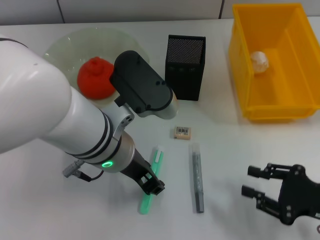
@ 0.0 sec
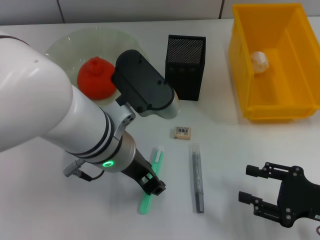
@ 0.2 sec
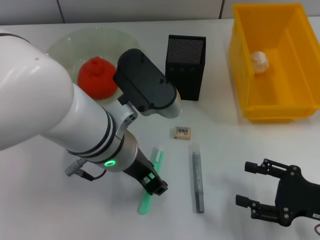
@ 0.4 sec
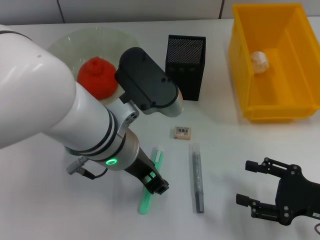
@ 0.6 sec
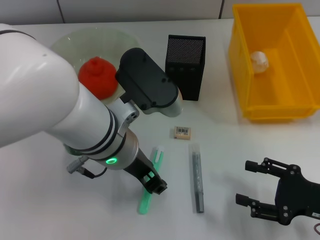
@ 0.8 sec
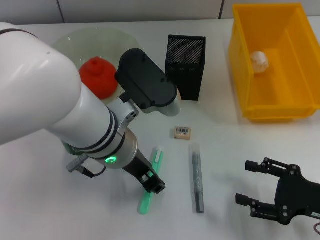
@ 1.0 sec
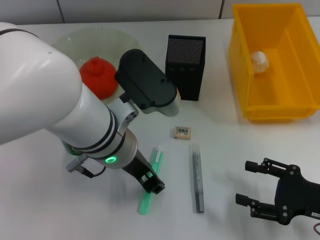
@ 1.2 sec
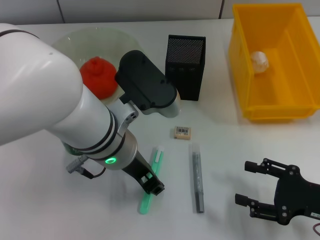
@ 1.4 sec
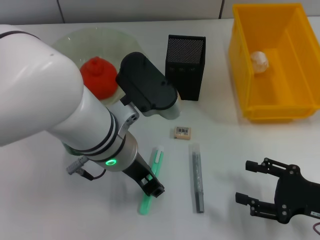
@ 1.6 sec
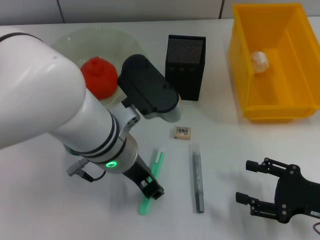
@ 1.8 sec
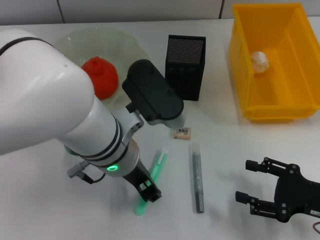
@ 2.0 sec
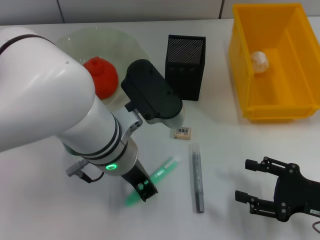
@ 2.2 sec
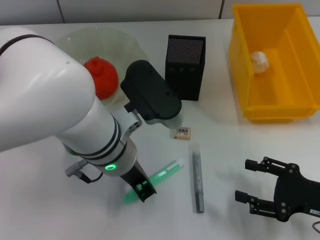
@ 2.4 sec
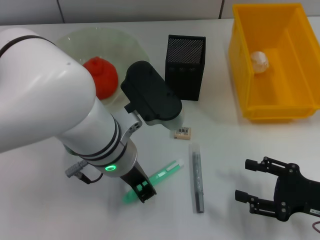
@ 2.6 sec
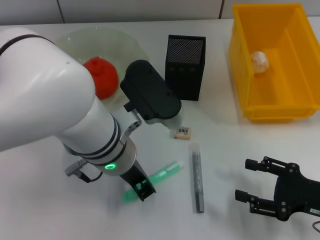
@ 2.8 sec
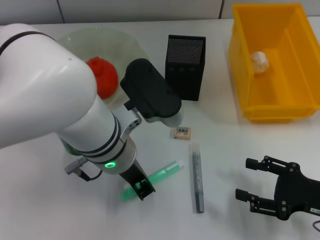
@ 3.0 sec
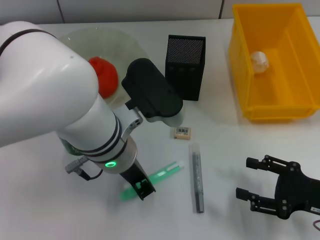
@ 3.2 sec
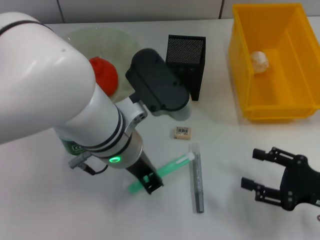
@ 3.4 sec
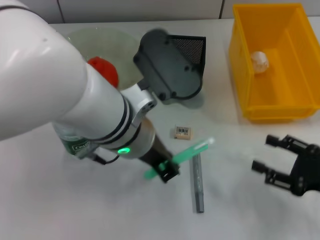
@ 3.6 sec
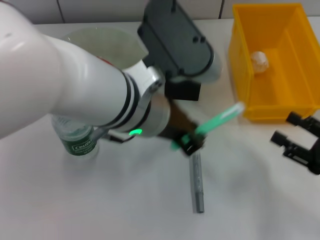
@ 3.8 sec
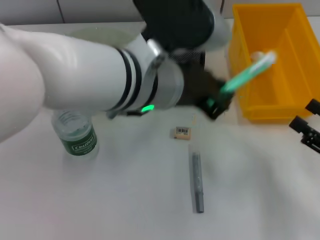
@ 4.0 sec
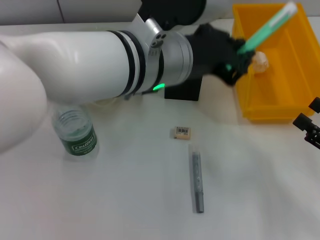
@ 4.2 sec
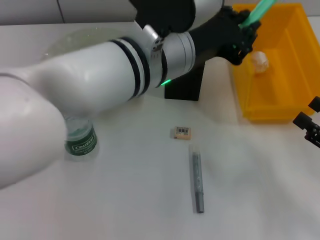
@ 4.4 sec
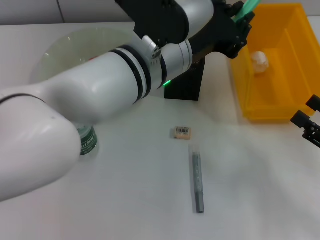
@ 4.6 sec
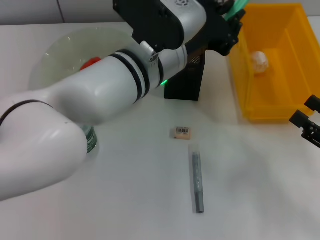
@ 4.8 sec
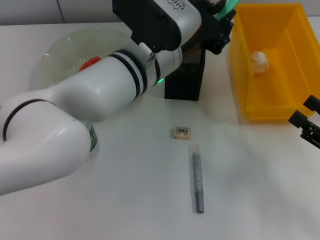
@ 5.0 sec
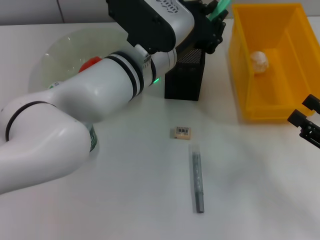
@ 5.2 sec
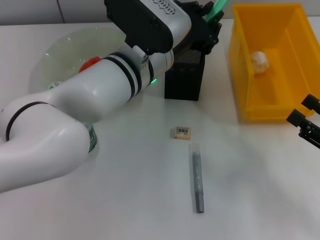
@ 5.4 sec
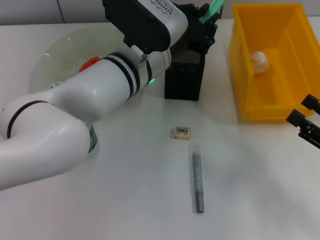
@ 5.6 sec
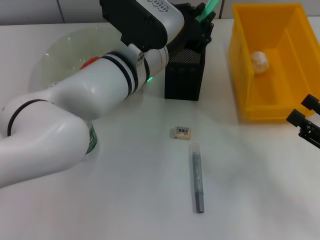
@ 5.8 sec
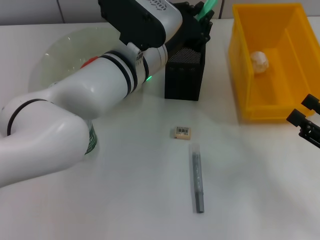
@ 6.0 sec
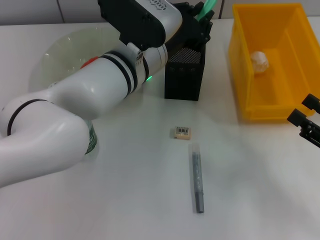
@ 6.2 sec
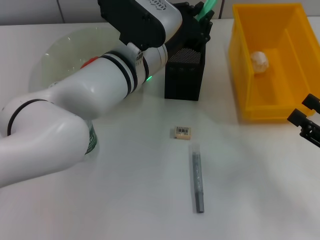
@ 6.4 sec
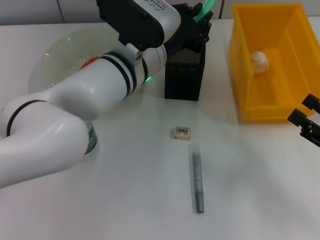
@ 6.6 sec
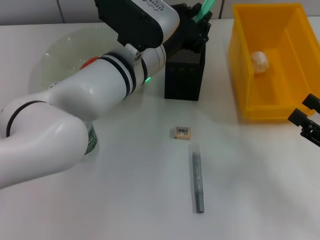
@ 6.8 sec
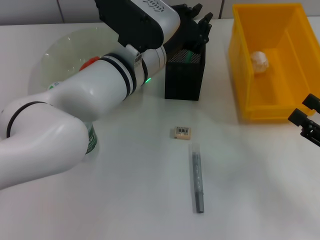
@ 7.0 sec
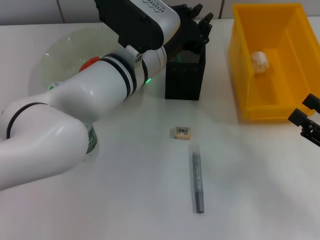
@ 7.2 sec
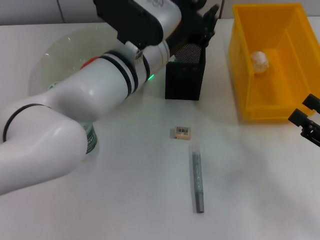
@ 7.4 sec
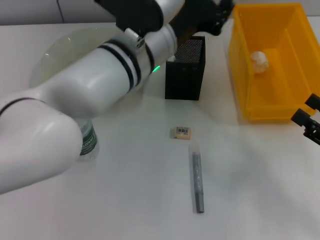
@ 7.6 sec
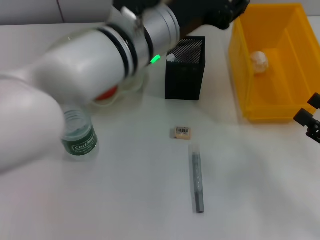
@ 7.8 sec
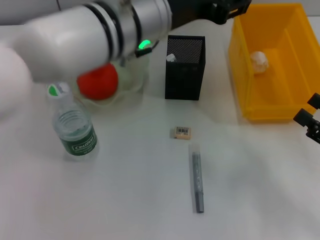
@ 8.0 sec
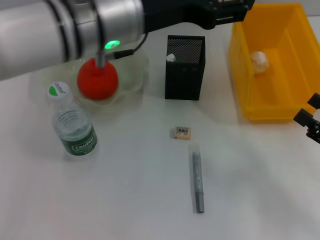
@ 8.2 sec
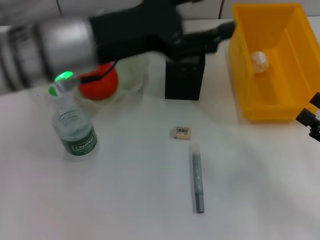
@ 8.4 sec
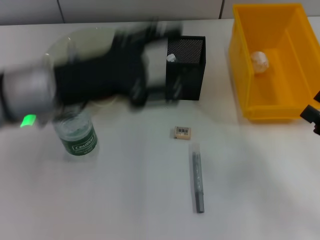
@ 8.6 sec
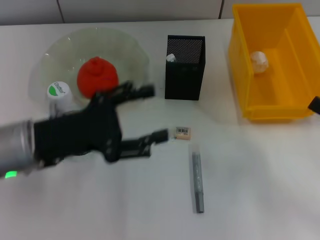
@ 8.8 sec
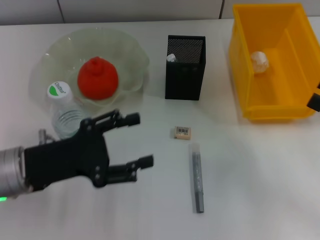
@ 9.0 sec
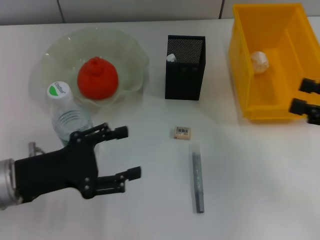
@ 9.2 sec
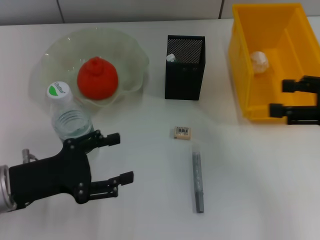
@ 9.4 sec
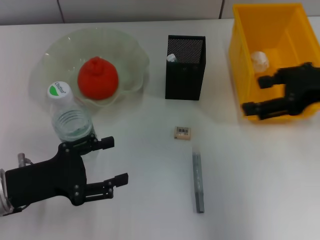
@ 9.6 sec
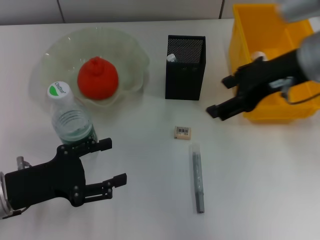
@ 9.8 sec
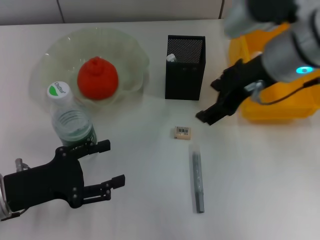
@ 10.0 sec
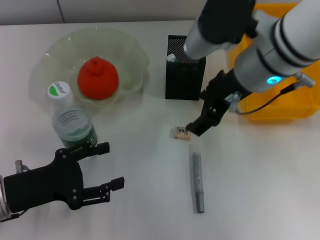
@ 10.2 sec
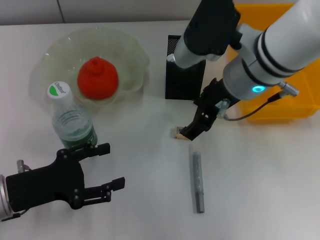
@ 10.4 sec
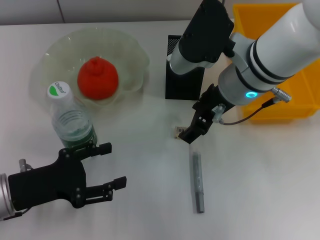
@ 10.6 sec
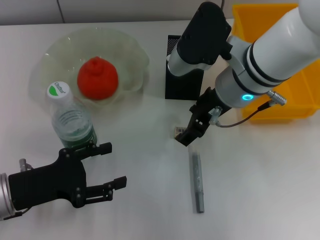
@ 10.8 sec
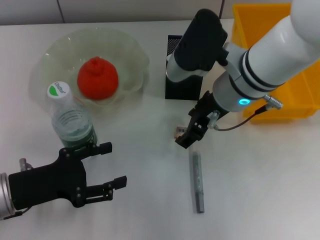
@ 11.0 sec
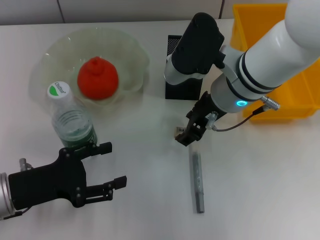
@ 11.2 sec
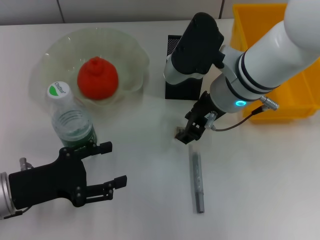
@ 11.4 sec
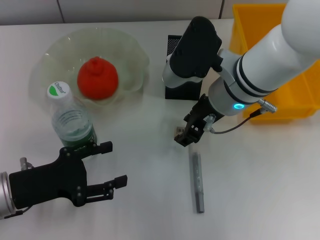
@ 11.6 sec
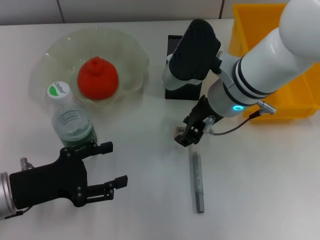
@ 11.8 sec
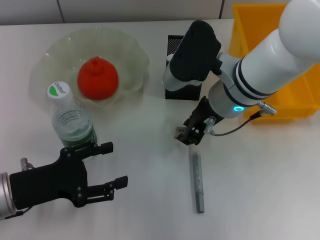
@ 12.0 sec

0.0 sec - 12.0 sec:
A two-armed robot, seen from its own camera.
Step, 0.0 sec - 2.8 sec: Grab the blue utility knife with the left hand.
Step, 3.2 sec - 7.6 sec: Place the blue utility knife into the pen holder with the left hand.
0.0 sec - 1.6 sec: The right gripper opens.
1.6 sec - 3.0 sec: Both grippers stay about where they are.
3.0 sec - 4.4 sec: The left gripper heads upward, covering approximately 10 cm.
4.4 sec - 6.0 sec: The left gripper moves downward and forward, some 10 cm.
6.0 sec - 7.6 sec: There are only small adjustments of the grippers.
7.6 sec - 9.0 sec: The right gripper goes some 5 cm upward, while the left gripper moves to the left, backward and downward, roughly 25 cm, and opens up.
9.0 sec - 10.4 sec: The right gripper travels to the left and forward by approximately 30 cm. Meanwhile the left gripper ends up roughly 5 cm from where it was.
10.4 sec - 12.0 sec: The right gripper closes up.

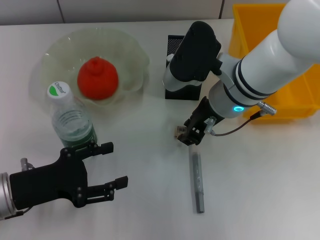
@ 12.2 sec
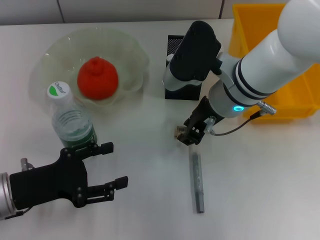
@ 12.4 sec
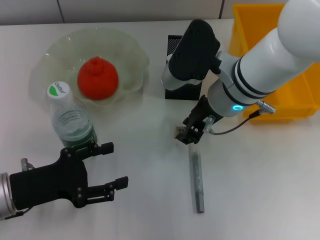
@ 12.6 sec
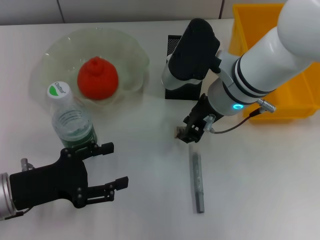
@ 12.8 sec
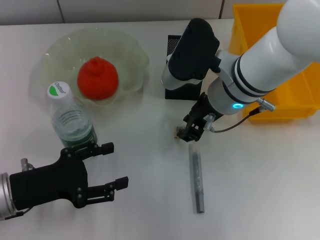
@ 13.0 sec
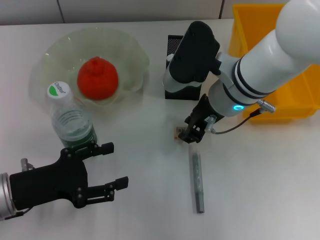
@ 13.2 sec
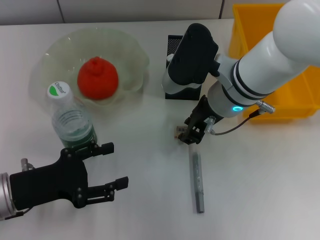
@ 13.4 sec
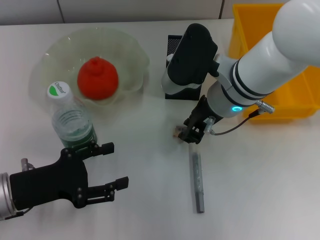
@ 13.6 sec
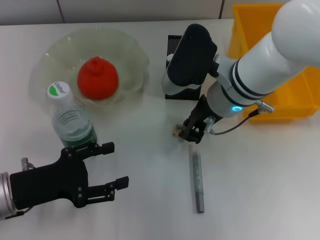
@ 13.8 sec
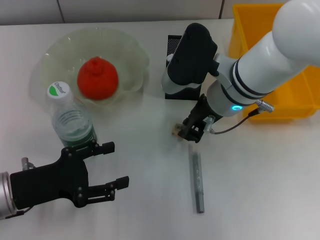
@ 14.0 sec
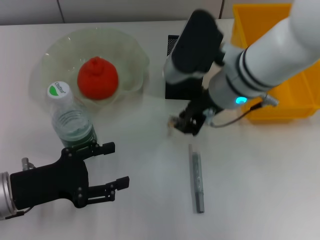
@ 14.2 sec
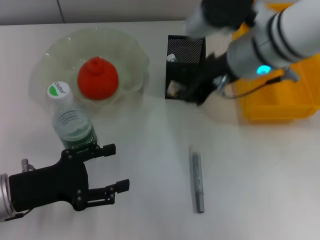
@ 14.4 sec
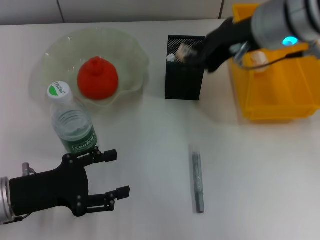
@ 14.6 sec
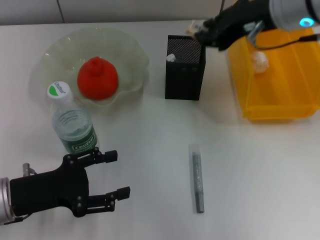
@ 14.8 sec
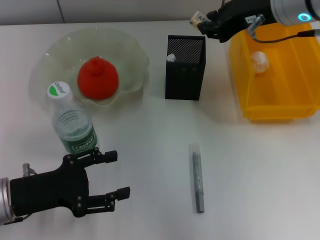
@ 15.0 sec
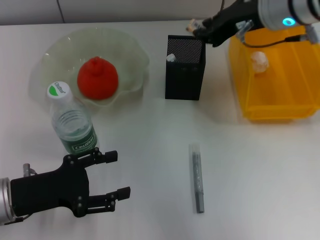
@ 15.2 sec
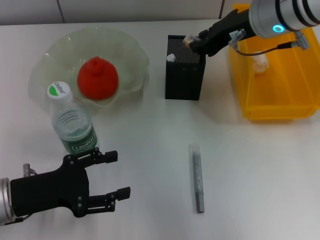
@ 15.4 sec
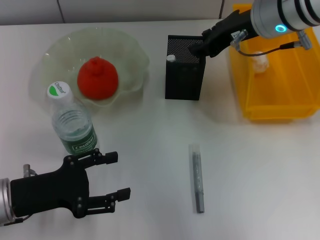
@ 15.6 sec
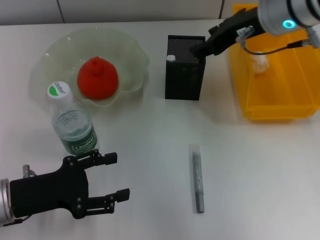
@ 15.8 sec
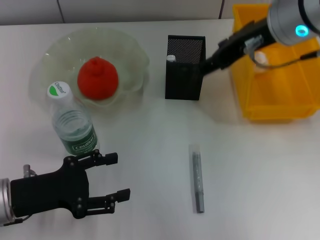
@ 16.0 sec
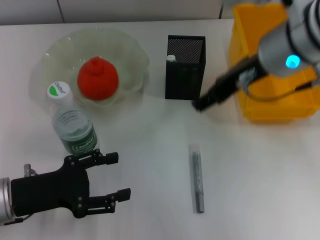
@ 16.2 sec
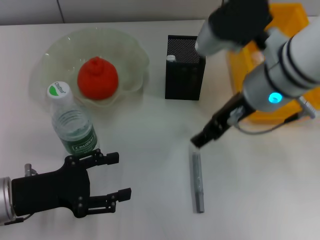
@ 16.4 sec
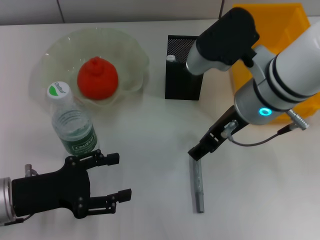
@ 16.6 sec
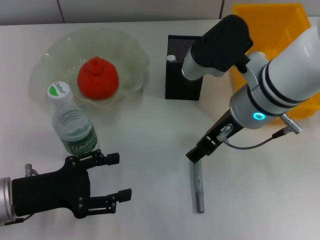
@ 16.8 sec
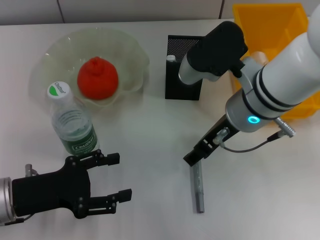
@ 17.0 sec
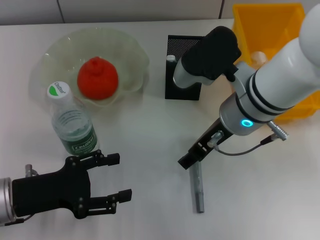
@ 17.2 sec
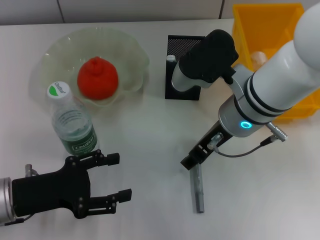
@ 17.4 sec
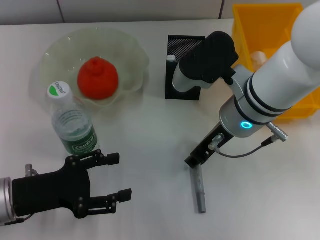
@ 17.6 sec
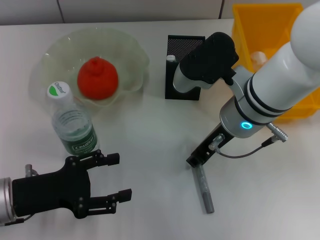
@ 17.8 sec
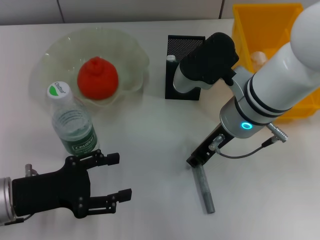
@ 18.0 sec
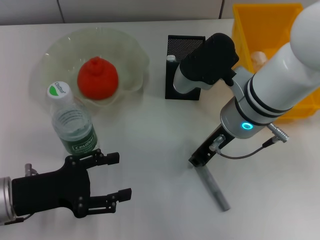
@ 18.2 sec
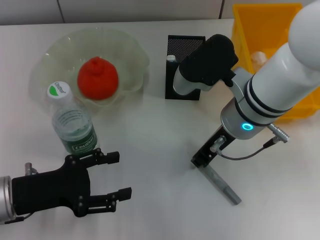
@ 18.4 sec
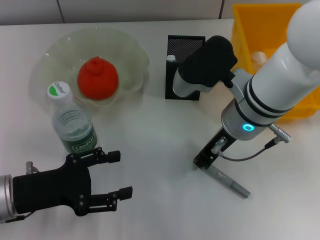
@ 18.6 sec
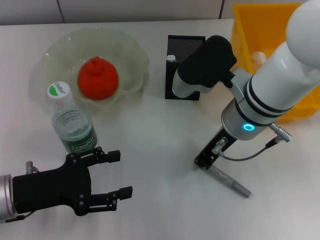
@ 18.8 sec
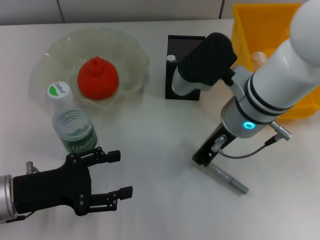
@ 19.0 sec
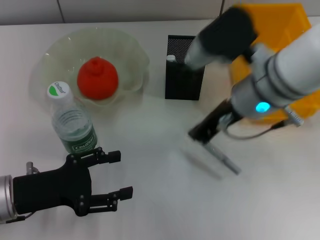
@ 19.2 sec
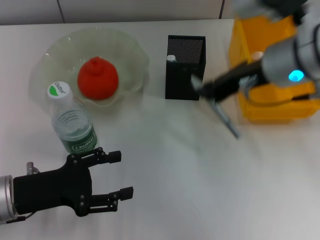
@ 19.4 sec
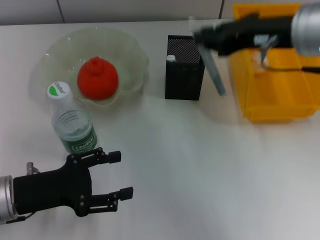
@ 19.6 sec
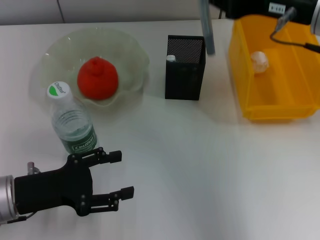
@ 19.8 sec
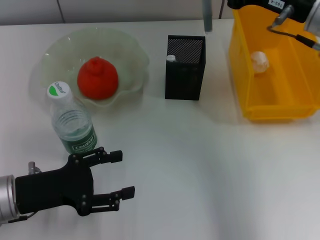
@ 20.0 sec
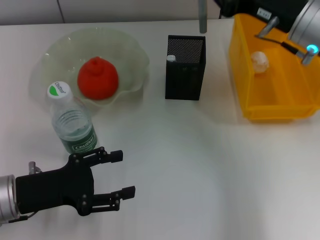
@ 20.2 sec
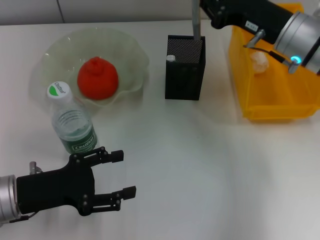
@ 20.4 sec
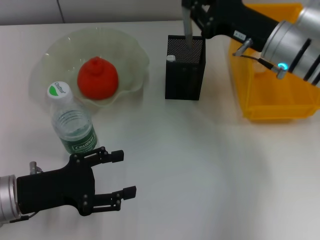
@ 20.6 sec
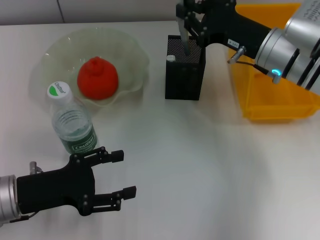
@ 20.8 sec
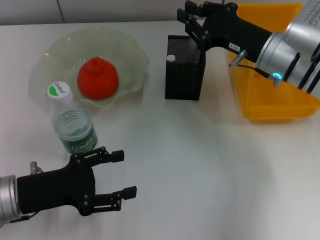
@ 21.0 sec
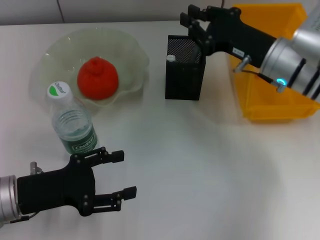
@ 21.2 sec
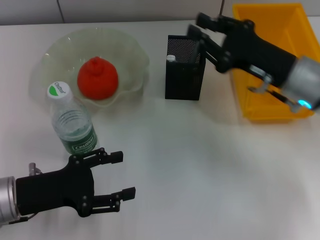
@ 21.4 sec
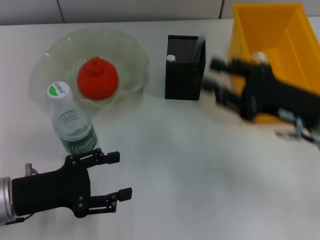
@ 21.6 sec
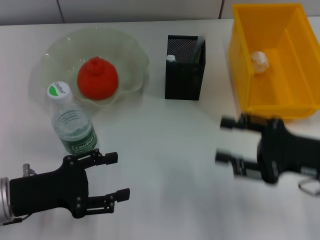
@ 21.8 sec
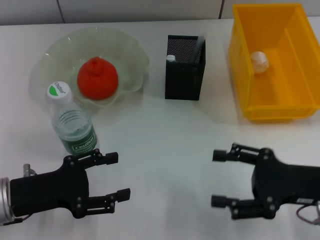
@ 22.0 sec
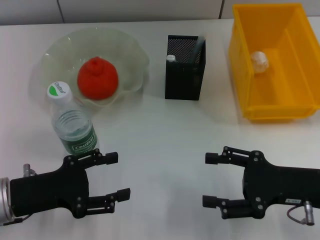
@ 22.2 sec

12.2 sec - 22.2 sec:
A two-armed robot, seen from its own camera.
Step, 14.0 sec - 15.6 sec: Put the eraser into the pen holder with the right hand.
Step, 15.8 sec - 18.8 sec: Grab the gray glue with the right hand.
Step, 19.0 sec - 21.0 sec: Place the gray glue into the pen holder with the right hand.
12.2 sec - 13.6 sec: The two grippers keep their place.
13.6 sec - 15.0 sec: The right gripper goes about 15 cm upward and to the right.
15.0 sec - 16.4 sec: The right gripper is displaced downward and backward by about 10 cm, and opens its fingers.
16.4 sec - 18.0 sec: The right gripper closes its fingers.
18.0 sec - 19.4 sec: The right gripper moves upward and to the right, roughly 10 cm, and closes up.
19.4 sec - 20.8 sec: The right gripper is displaced downward and forward by some 10 cm.
20.8 sec - 22.2 sec: The right gripper travels backward and to the right by approximately 15 cm, and opens.
